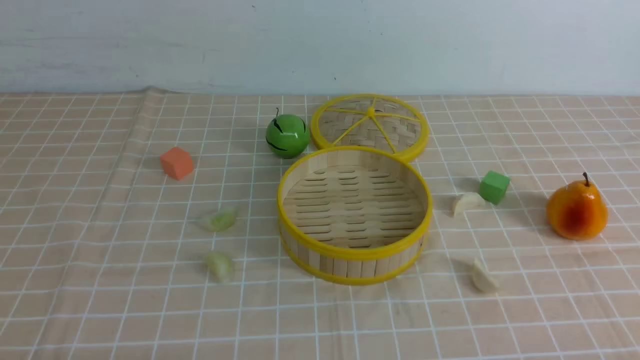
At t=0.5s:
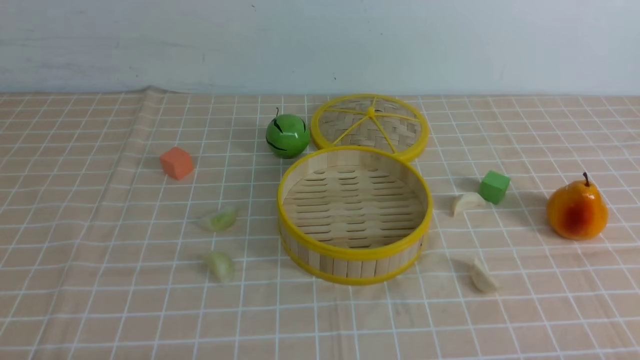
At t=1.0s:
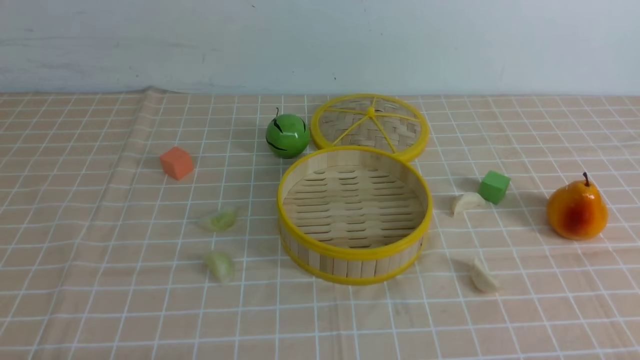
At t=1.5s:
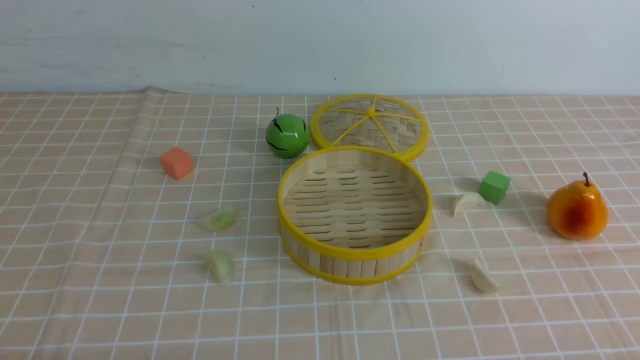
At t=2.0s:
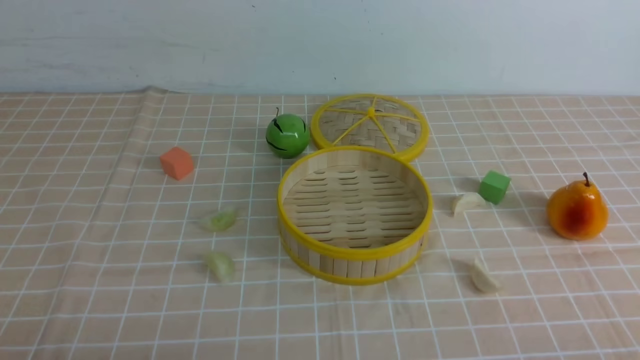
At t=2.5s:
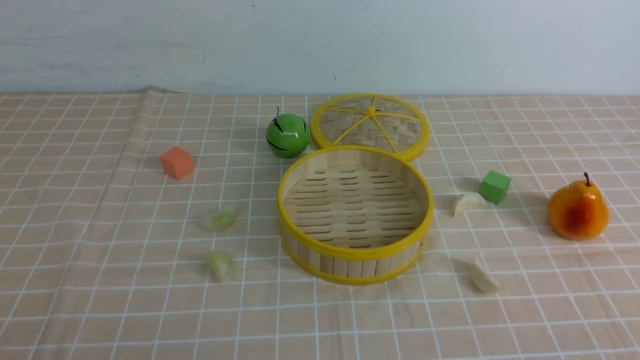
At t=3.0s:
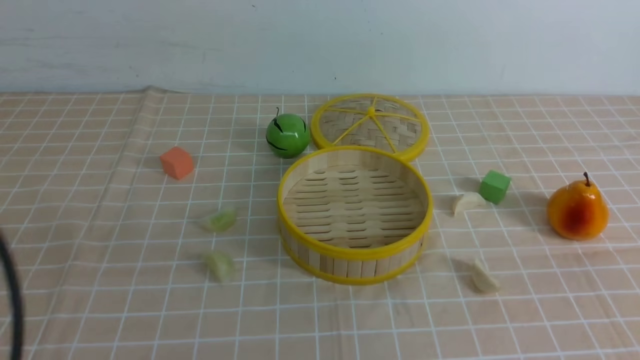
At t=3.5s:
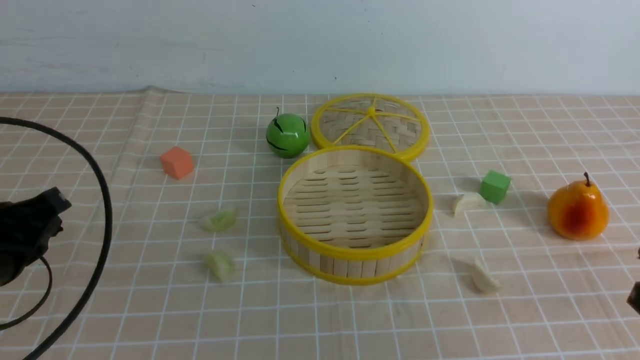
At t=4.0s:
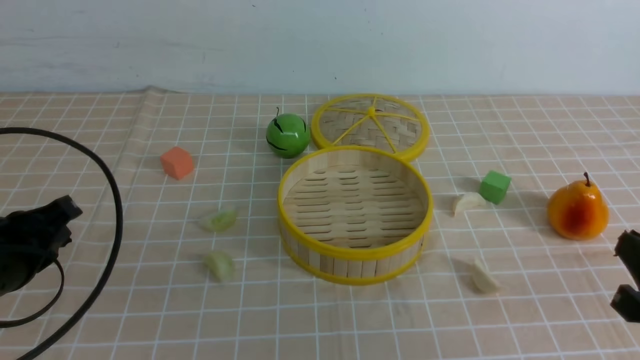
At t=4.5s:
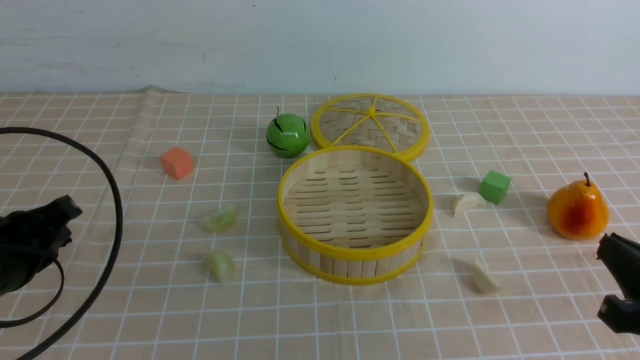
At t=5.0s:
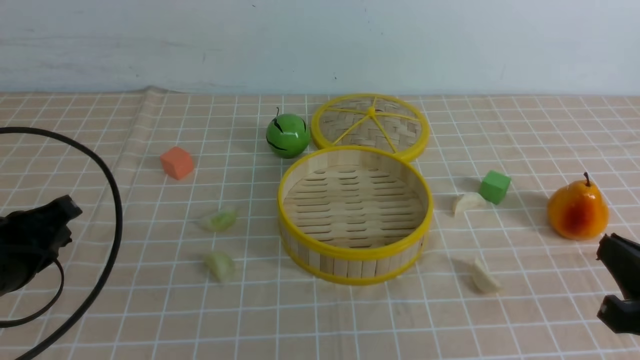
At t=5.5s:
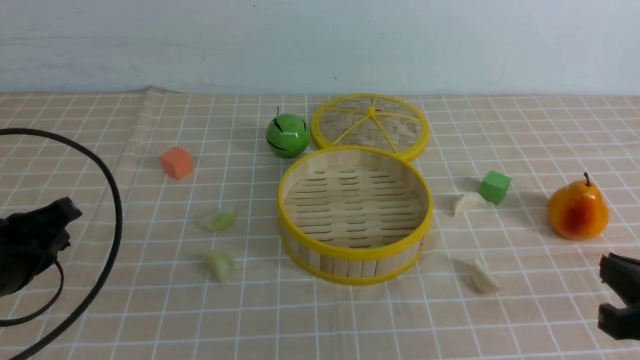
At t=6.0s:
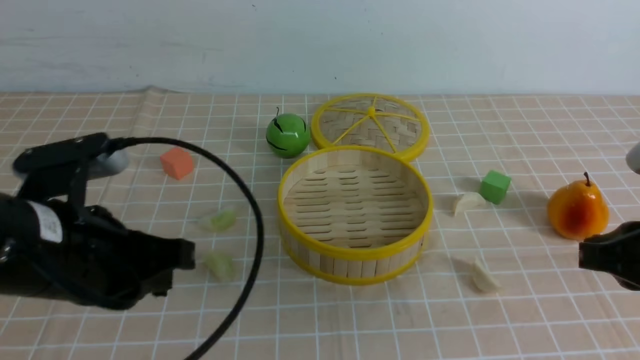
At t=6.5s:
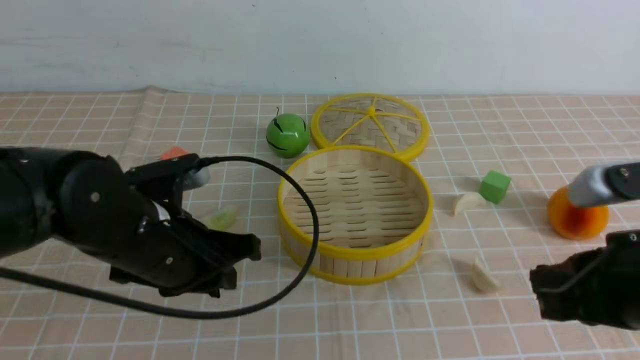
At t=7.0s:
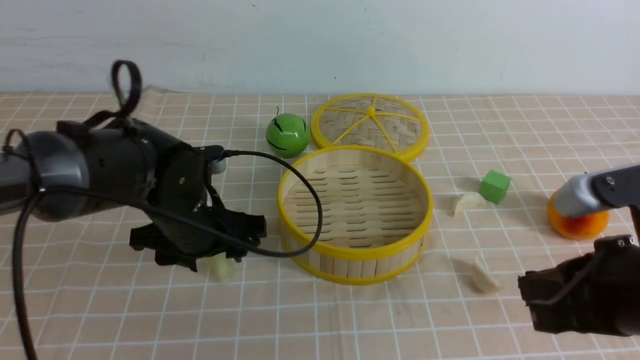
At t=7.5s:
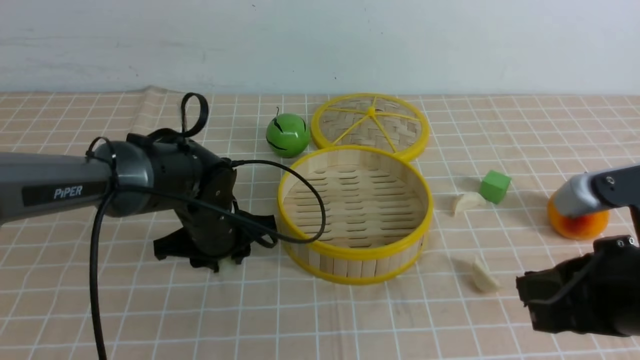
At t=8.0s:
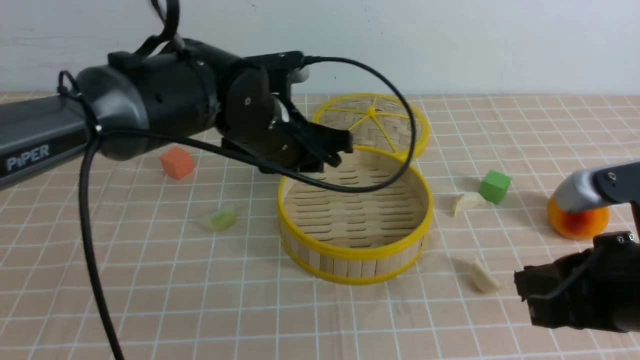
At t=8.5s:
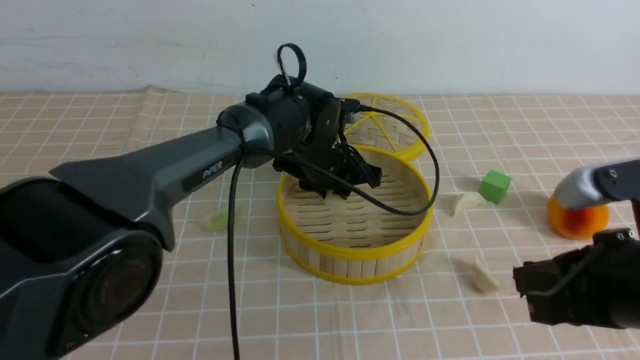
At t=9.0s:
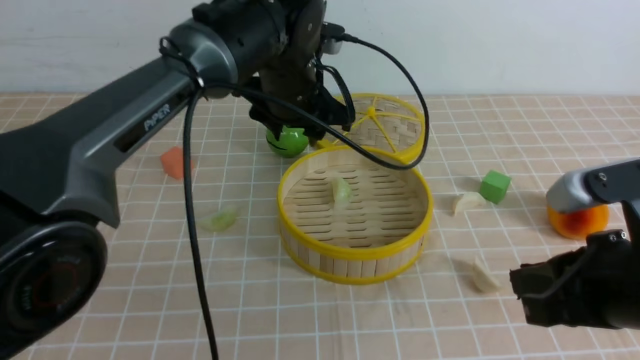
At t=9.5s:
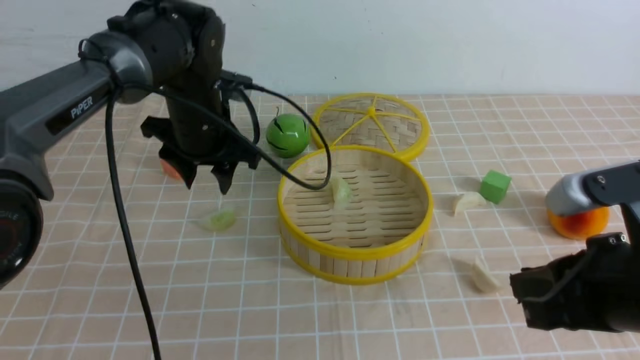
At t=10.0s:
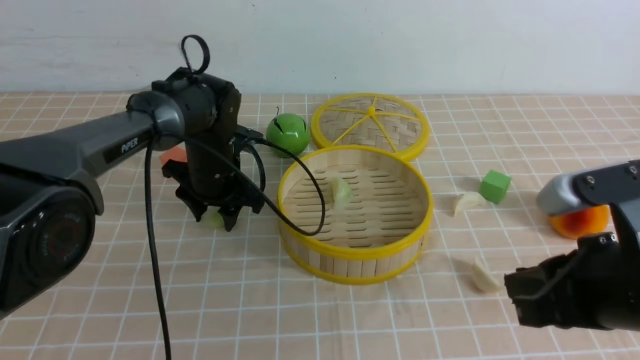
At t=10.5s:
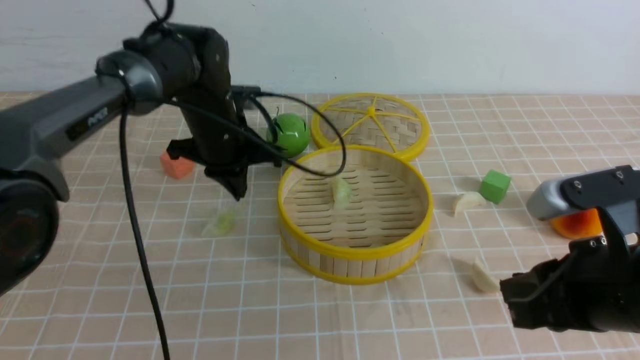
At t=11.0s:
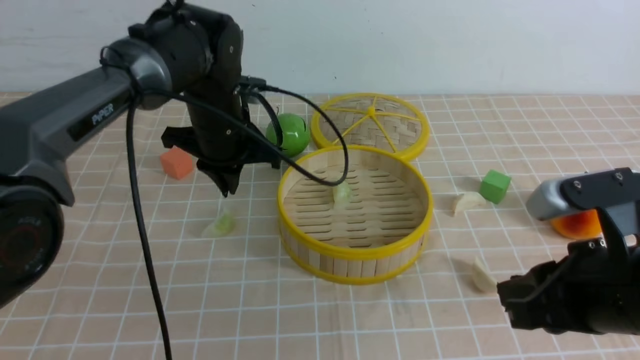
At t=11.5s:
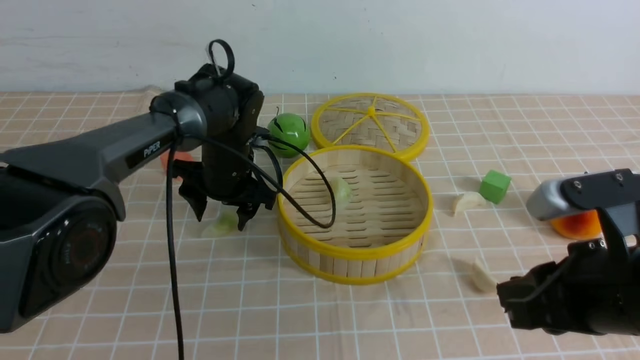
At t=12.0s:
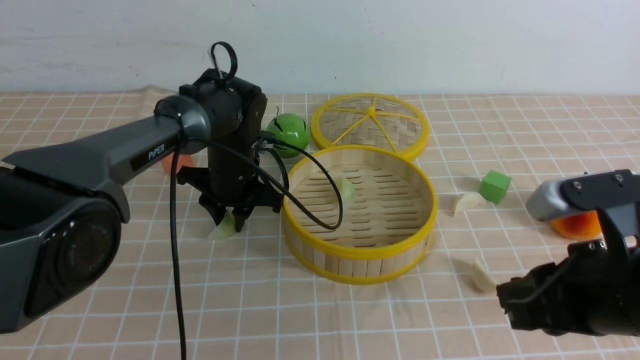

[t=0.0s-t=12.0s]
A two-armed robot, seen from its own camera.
Task of the whole recording: put the dumplings into the steamer on the table with the brown tablecloth.
Step, t=0.0s to t=7.5s: use the left arm to grab a dumpling.
Step, t=8.0s to t=8.5s: use the left arm to put the dumpling into the steamer.
t=2.0s to t=4.0s: The left gripper moves forward, roughly 15 cm, and closes. The right gripper shifts approximately 10 cm forward.
t=4.0s to t=6.0s: The left gripper travels to the right by about 10 cm. The right gripper moves approximately 5 cm.
t=6.0s to t=8.0s: The left gripper shifts roughly 20 cm forward and to the right, and opens up.
t=8.0s to t=10.0s: The left gripper moves downward, forward and to the left, roughly 15 cm.
t=10.0s to t=12.0s: The left gripper goes upward and returns, some 5 cm each way, and closes, then opens again.

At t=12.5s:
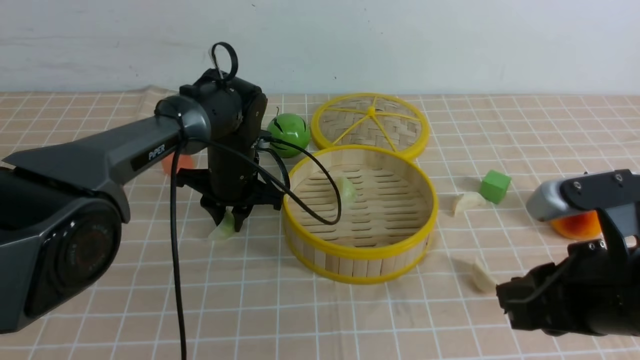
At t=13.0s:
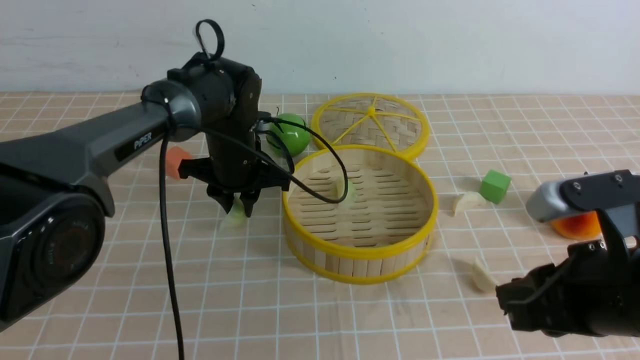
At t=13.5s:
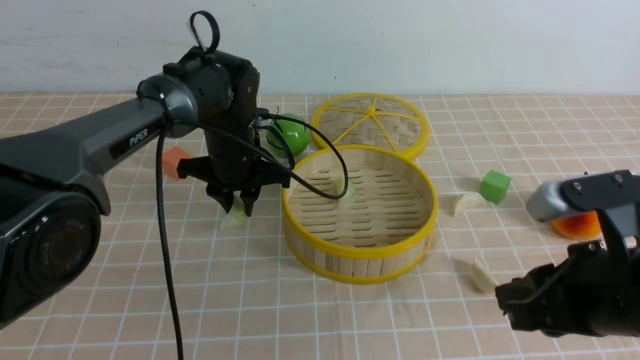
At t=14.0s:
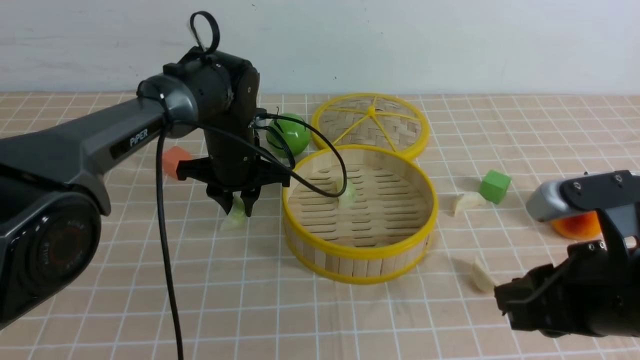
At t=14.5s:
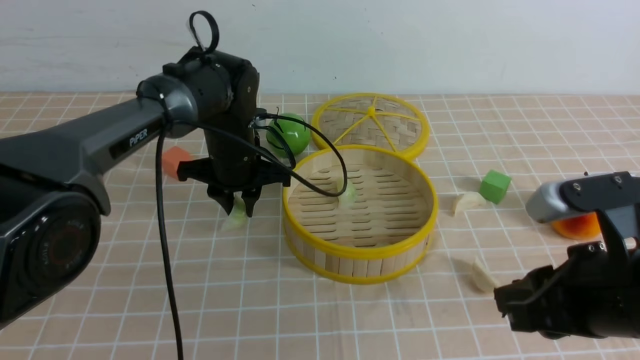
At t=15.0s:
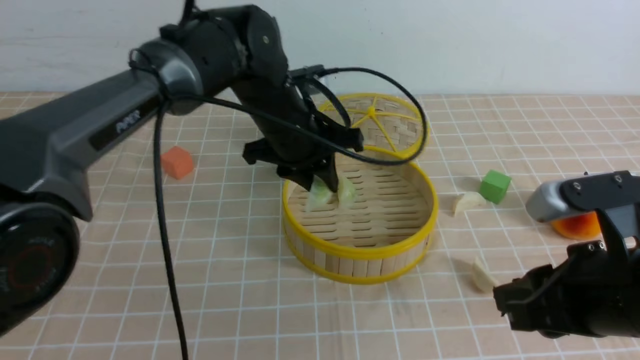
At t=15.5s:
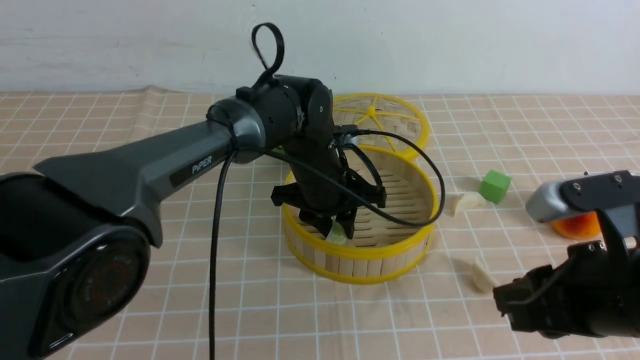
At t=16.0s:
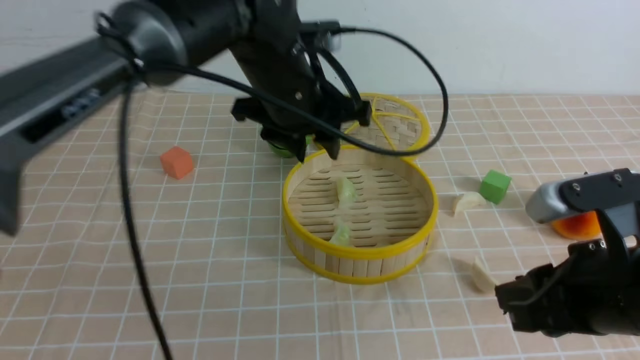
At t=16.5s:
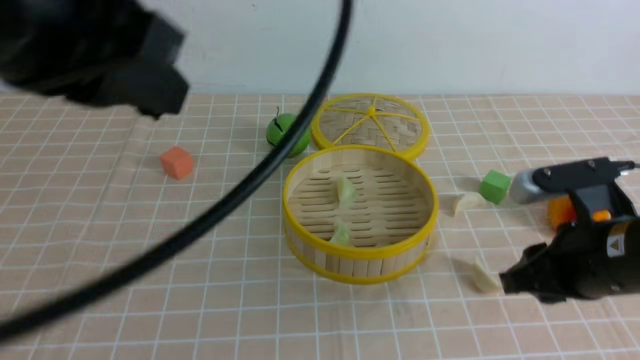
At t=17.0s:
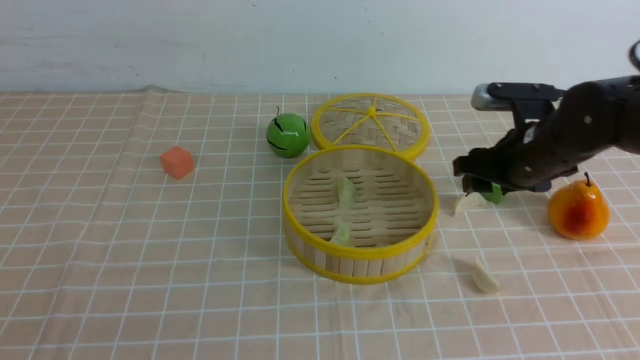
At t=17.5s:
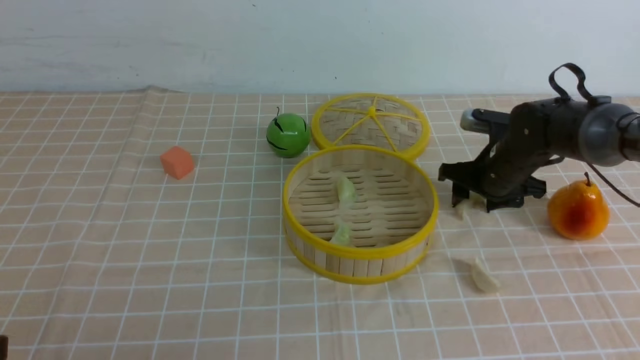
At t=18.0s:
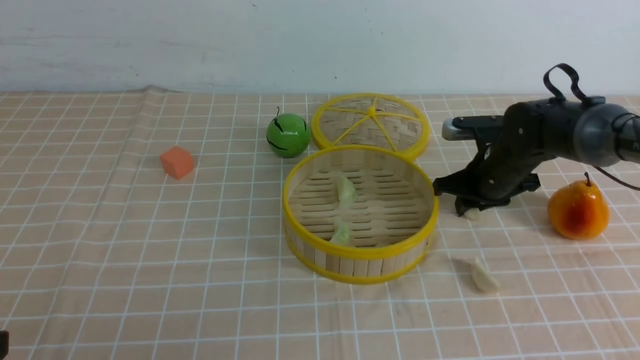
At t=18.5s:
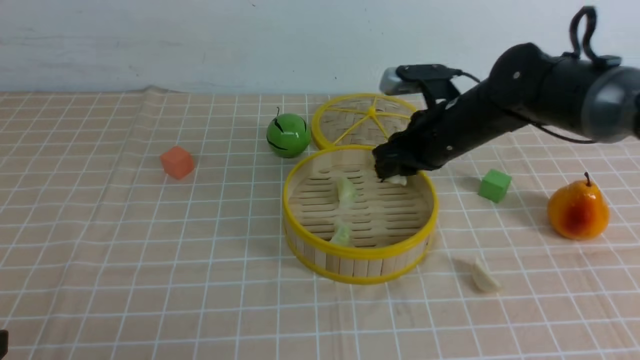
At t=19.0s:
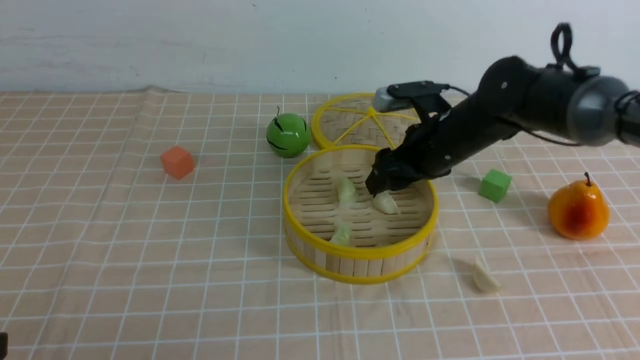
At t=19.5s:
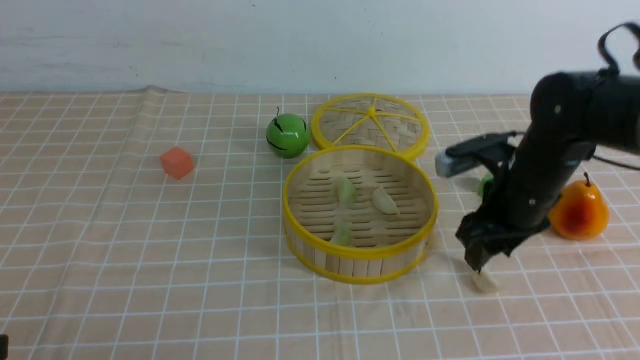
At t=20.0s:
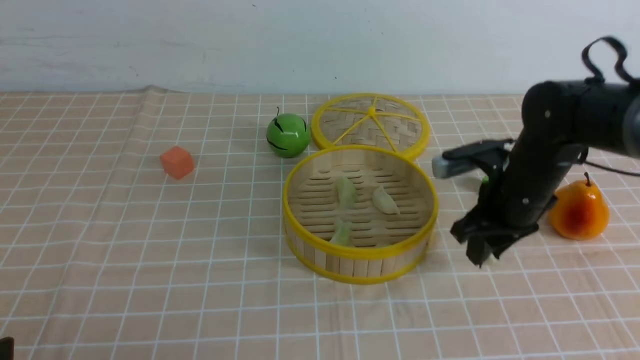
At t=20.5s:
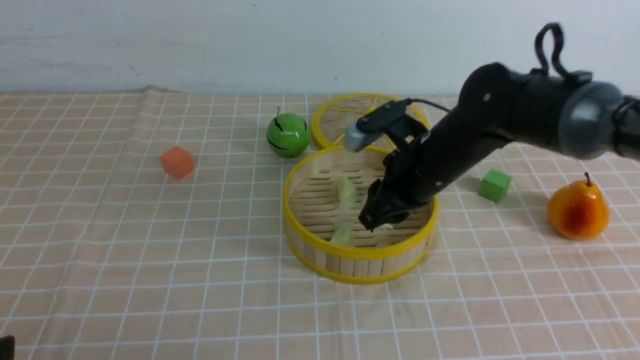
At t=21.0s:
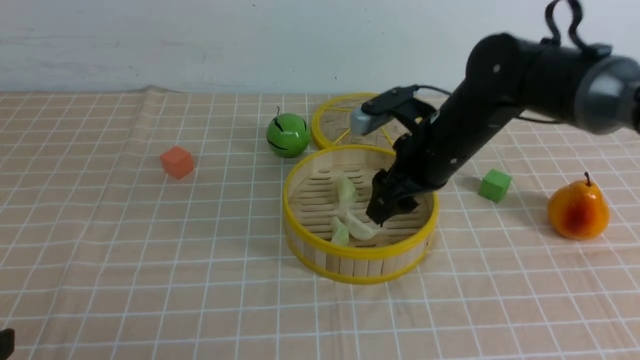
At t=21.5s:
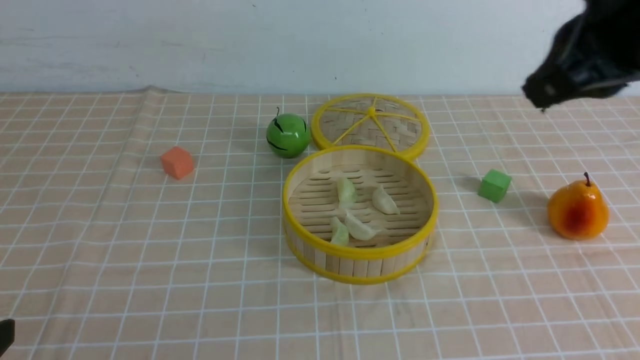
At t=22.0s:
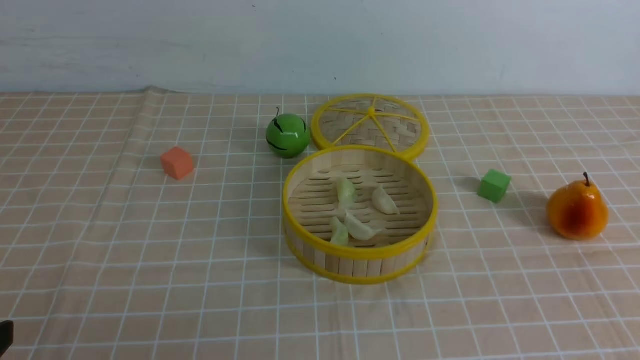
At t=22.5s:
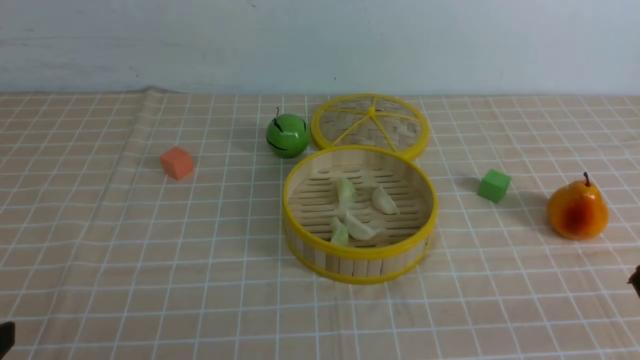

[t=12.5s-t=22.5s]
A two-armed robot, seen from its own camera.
Task of the whole recording: put the dumplings into the steamer on the table with the brown tablecloth.
Step, t=12.5s to t=16.0s: use the left arm to put the dumpling into the steamer.
Step, t=16.5s to t=17.5s: use the right arm to grab a dumpling.
Step, t=18.0s to t=19.0s: use the right arm to put the dumpling into the steamer.
Step, t=20.0s to t=21.0s: use the right arm to put the dumpling into the steamer.
t=12.5s to t=14.5s: The grippers make only small movements.
t=14.5s to t=16.5s: The left gripper shifts approximately 35 cm backward and upward. Meanwhile the right gripper shifts roughly 5 cm forward.
t=16.5s to t=18.5s: The left gripper shifts about 25 cm downward, backward and to the left; the right gripper heads forward, covering about 20 cm, and opens and closes again.
t=18.5s to t=20.5s: The right gripper shifts by some 5 cm, and opens, then closes once more.
t=20.5s to t=22.5s: The right gripper heads backward and to the right, covering roughly 35 cm, and closes its fingers.
